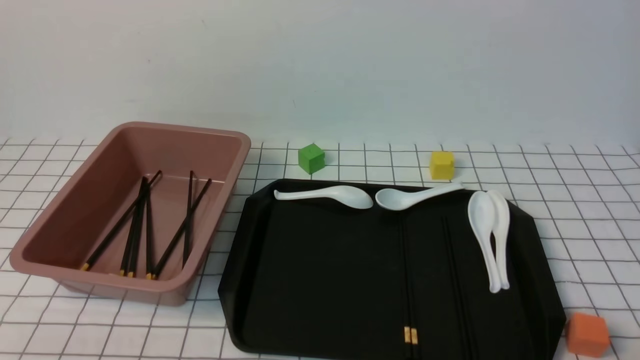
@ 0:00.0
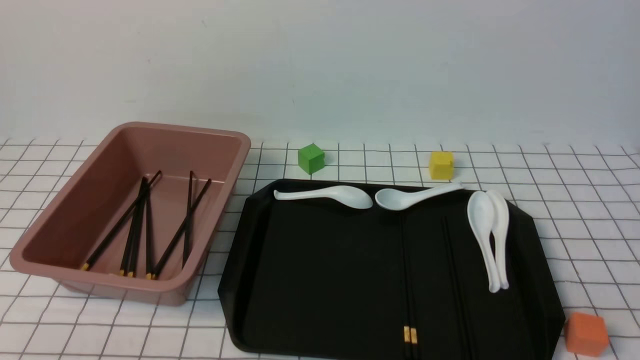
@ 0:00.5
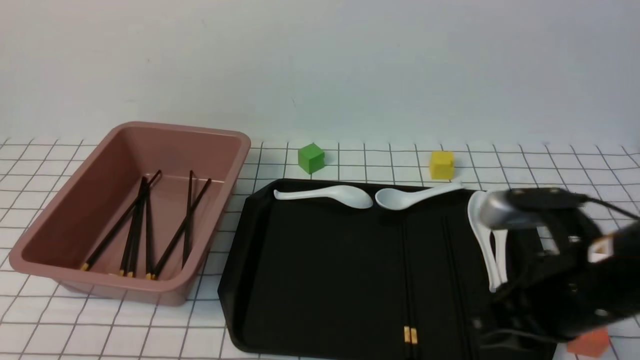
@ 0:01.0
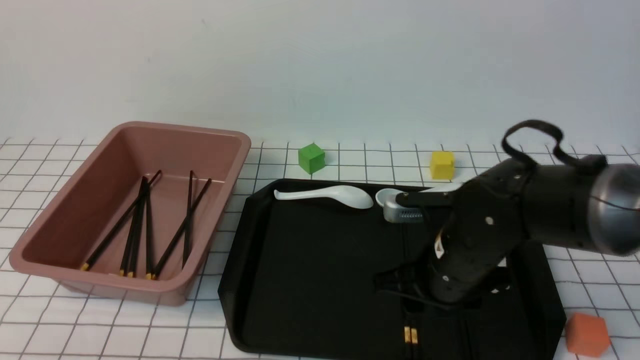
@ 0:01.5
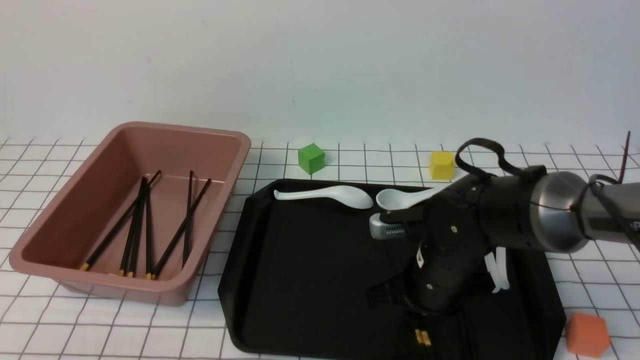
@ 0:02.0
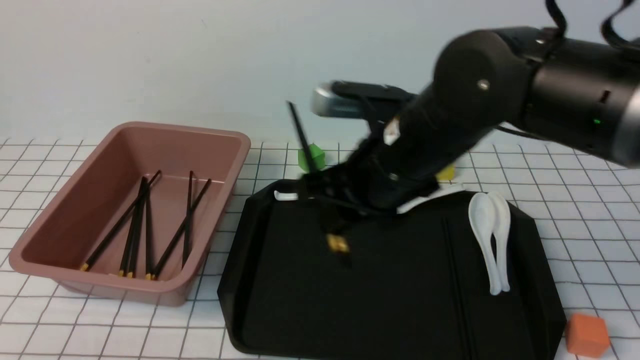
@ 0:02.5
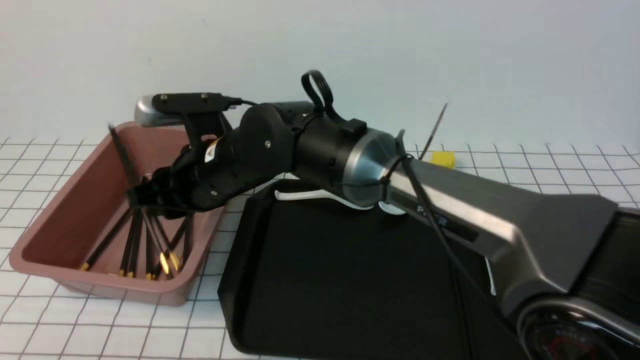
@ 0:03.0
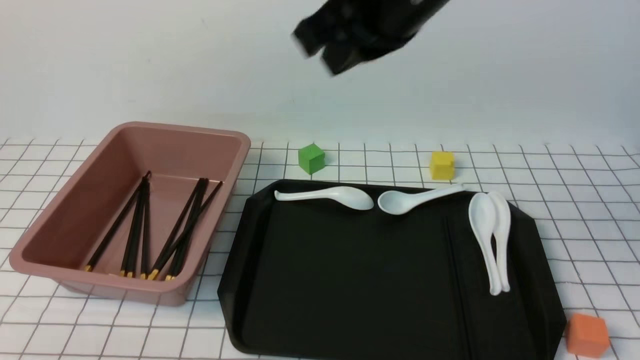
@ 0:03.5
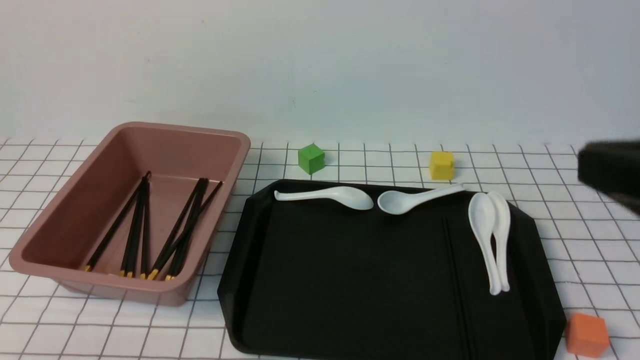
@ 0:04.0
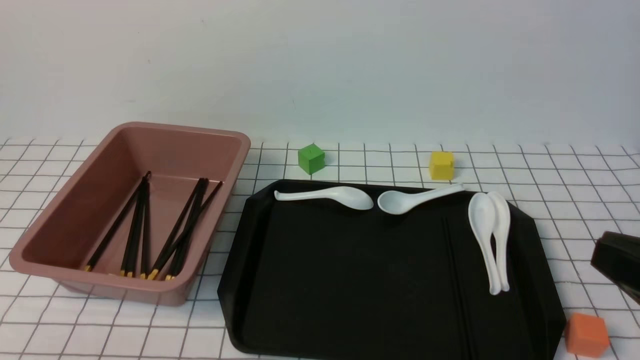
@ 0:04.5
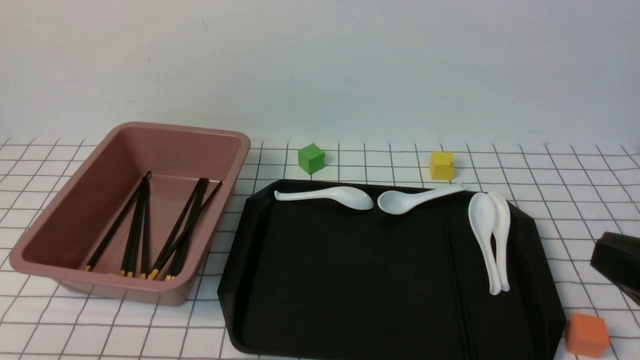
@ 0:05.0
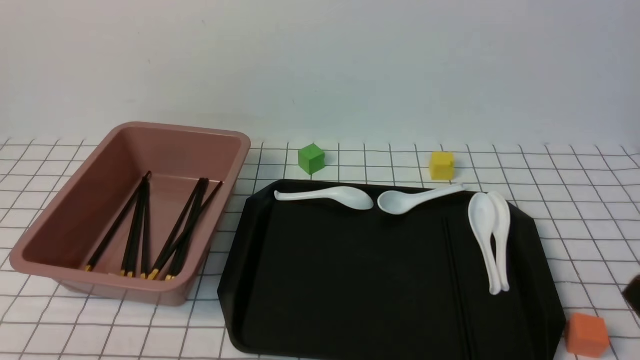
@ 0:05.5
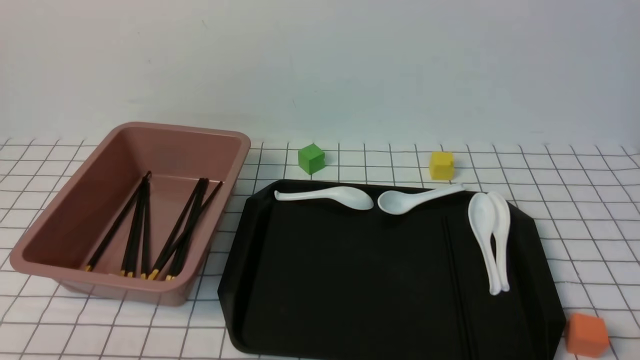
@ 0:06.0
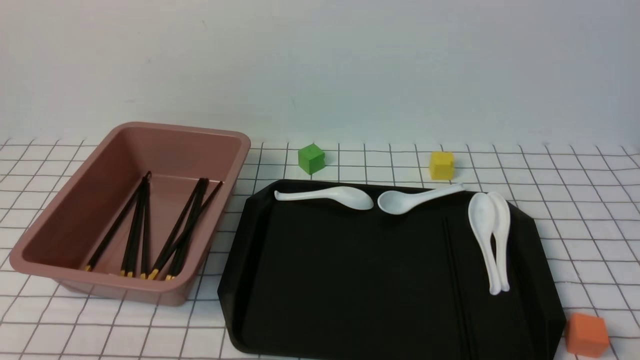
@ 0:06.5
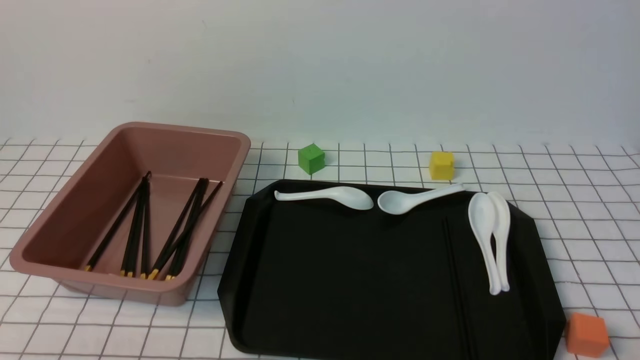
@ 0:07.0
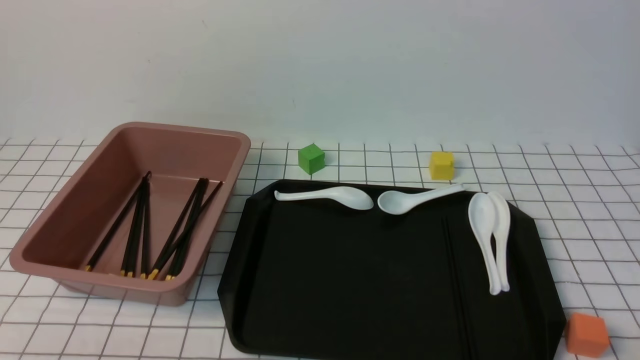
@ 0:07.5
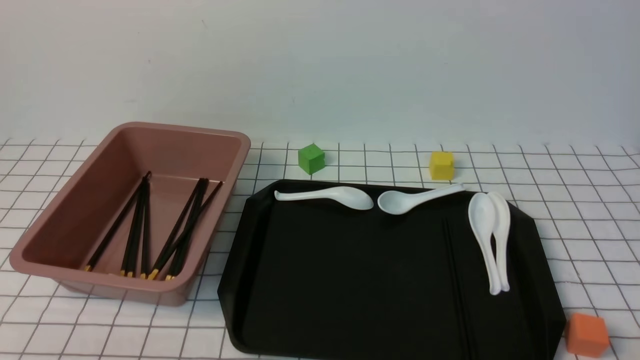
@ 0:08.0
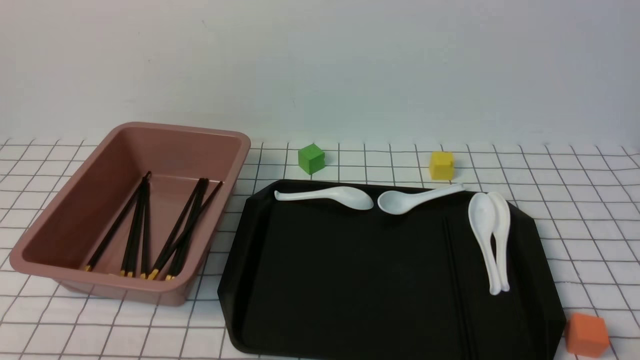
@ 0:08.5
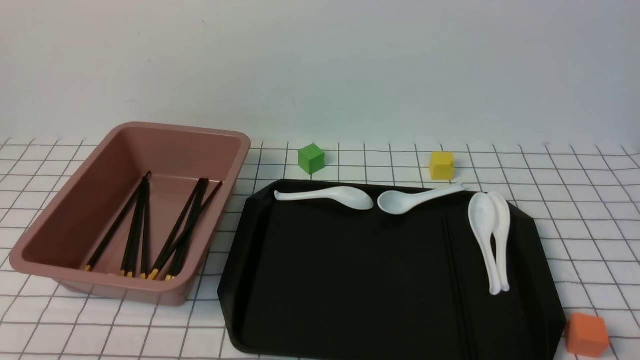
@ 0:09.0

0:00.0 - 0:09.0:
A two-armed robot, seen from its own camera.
Step, 0:00.0 - 0:02.0: use the right arm to grab a pair of chopsticks.
Step, 0:02.5 - 0:03.0: use the right arm to put the chopsticks into the lunch box.
0:00.0 - 0:02.0: The right gripper heads forward and to the left, covering some 30 cm, and closes, then reopens.
0:02.0 - 0:04.5: The right gripper goes some 30 cm backward, upward and to the right, and closes its fingers.
0:04.5 - 0:07.0: The right gripper goes some 15 cm downward.
0:07.0 - 0:09.0: Both grippers stay about where they are.
